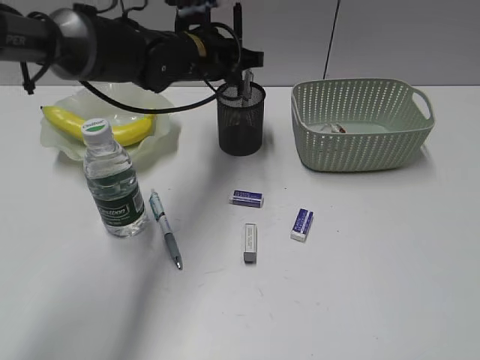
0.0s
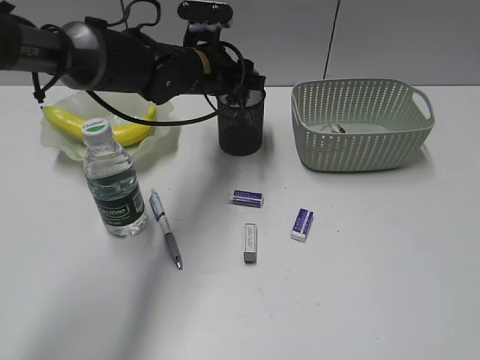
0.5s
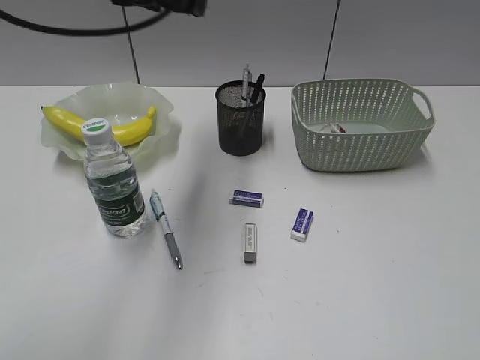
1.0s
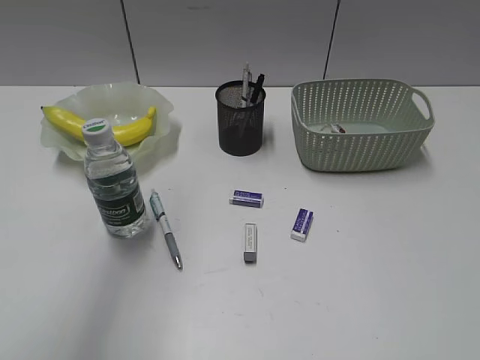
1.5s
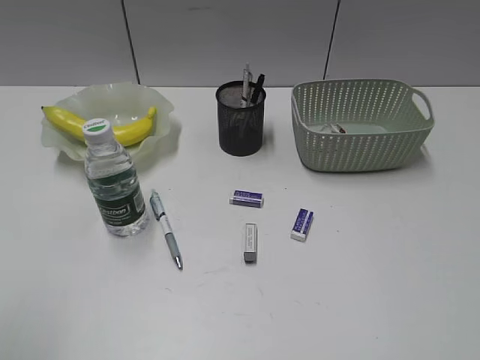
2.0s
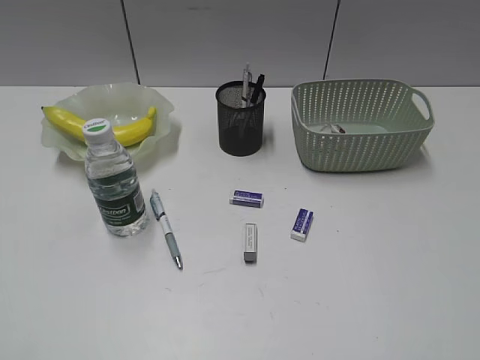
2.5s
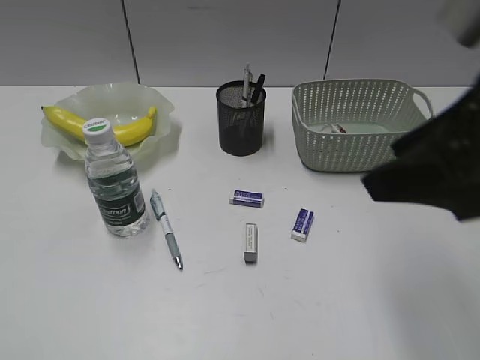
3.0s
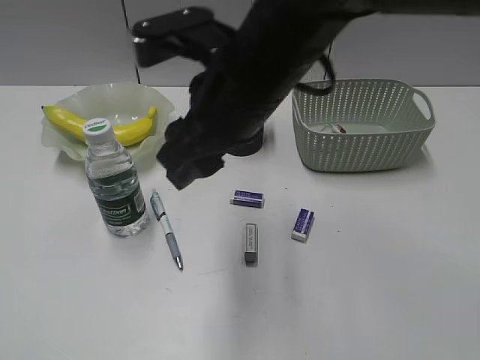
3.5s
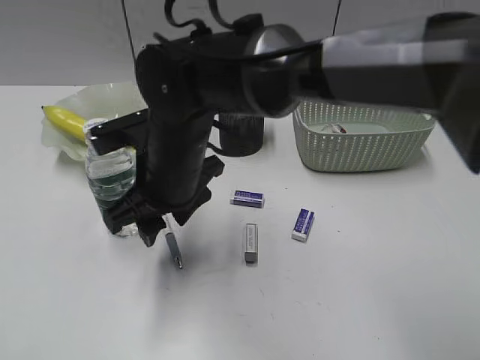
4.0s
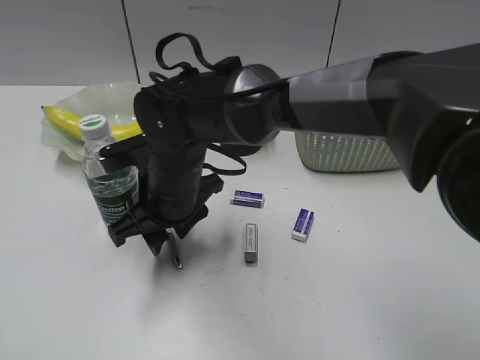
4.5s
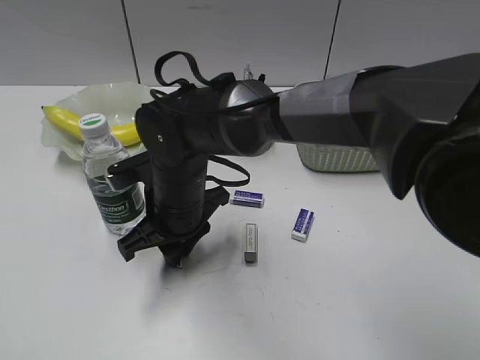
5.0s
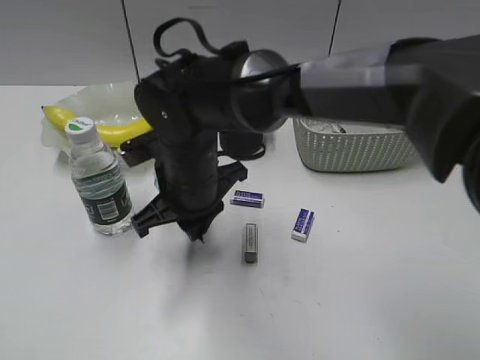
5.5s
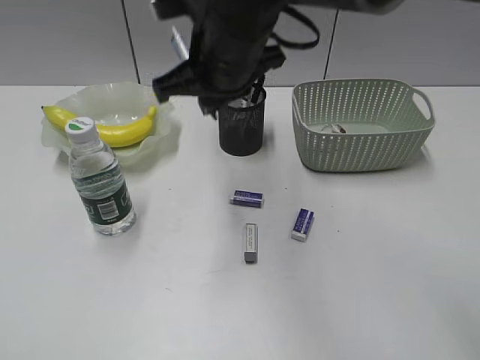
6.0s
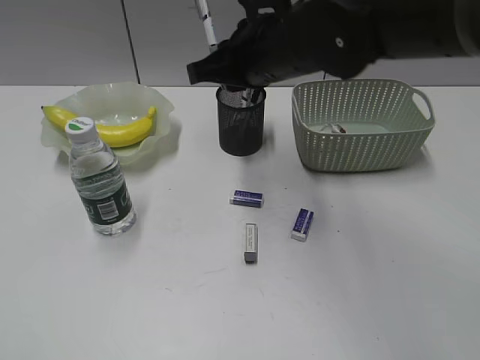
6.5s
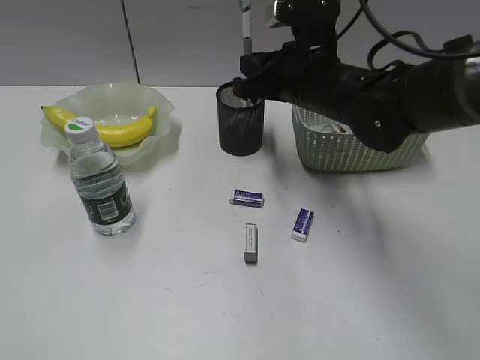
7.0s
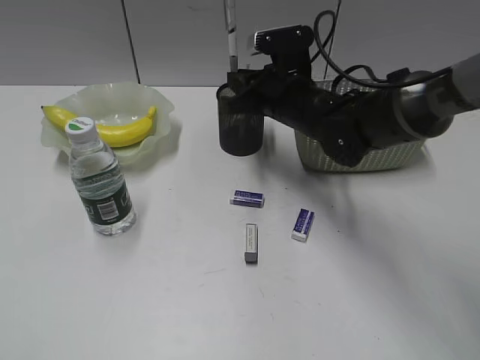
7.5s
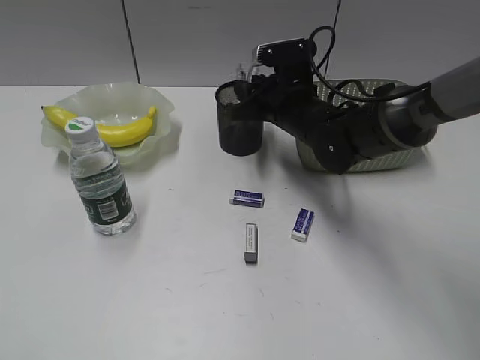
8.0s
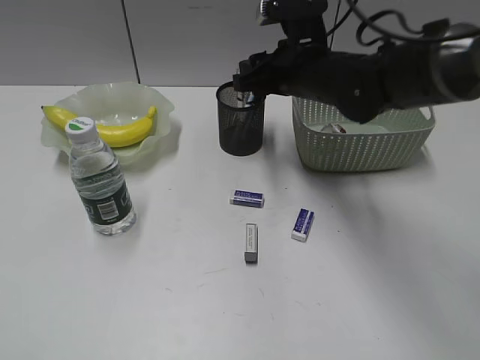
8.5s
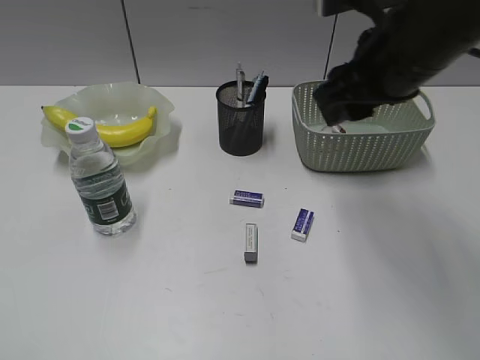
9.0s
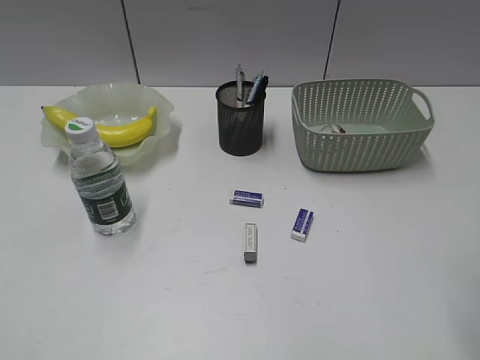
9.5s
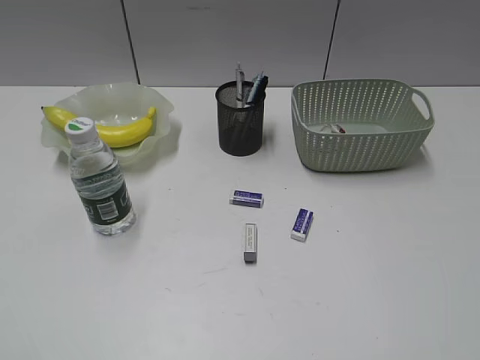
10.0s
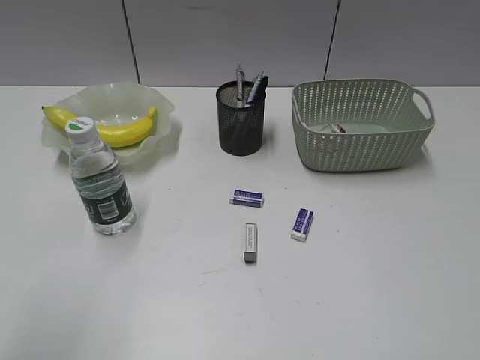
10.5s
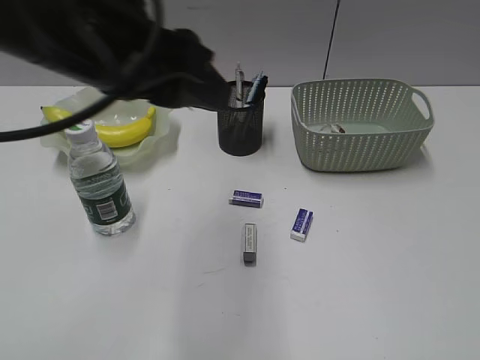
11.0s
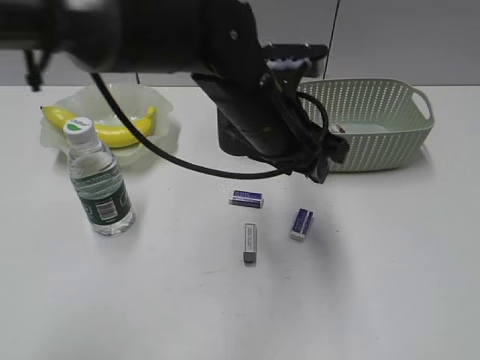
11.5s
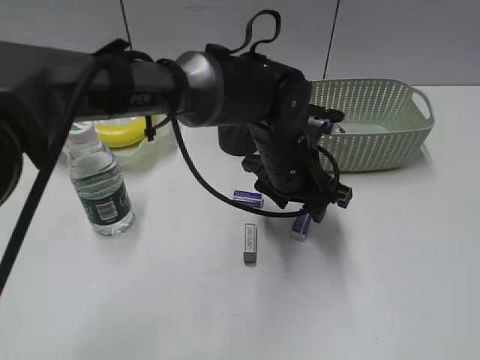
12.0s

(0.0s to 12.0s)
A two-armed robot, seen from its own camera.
Step, 1.0s - 5.0s: Grasp the blue pen with right gripper.
0.0s - 2.0s: The left gripper goes about 40 cm backward and to the left, and opens up.
2.0s - 4.0s: The right gripper moves to the left and forward, approximately 50 cm. The left gripper goes some 10 cm backward and downward.
4.0s - 6.0s: The right gripper moves upward, to the right and forward, approximately 10 cm, and closes.
6.0s - 8.0s: The right gripper is displaced downward, to the right and forward by some 15 cm, and opens its fingers.
8.0s - 10.0s: The right gripper moves backward, to the right and upward, some 50 cm.
10.0s - 12.0s: The left gripper heads to the right and forward, covering roughly 50 cm.

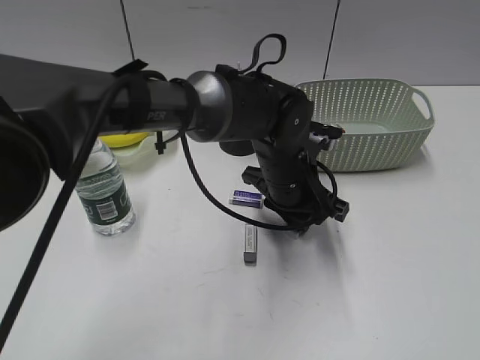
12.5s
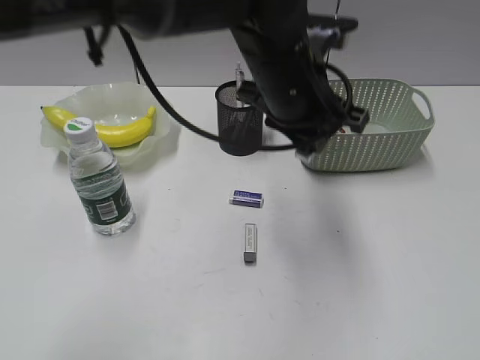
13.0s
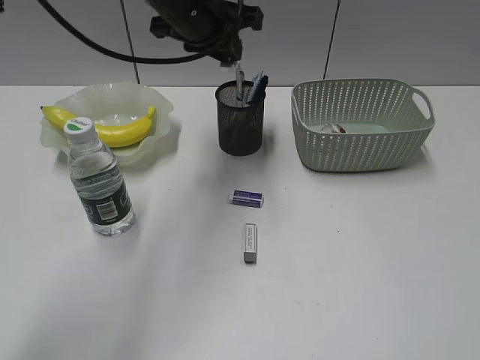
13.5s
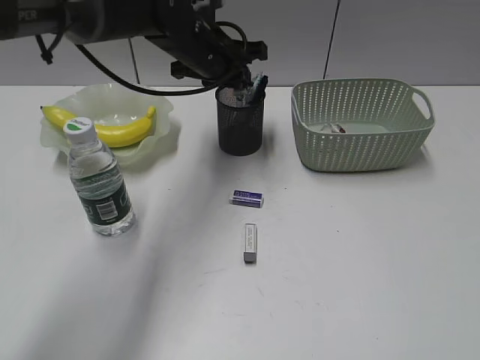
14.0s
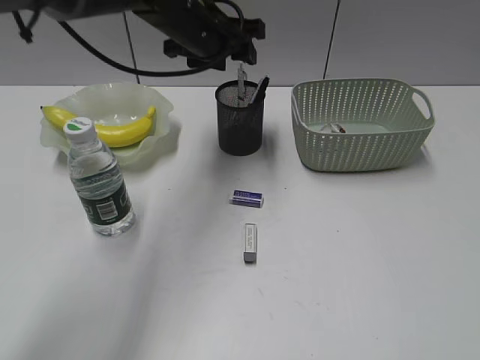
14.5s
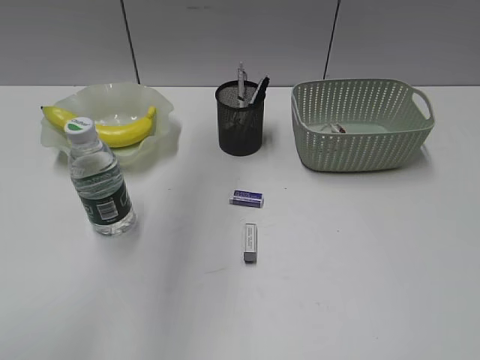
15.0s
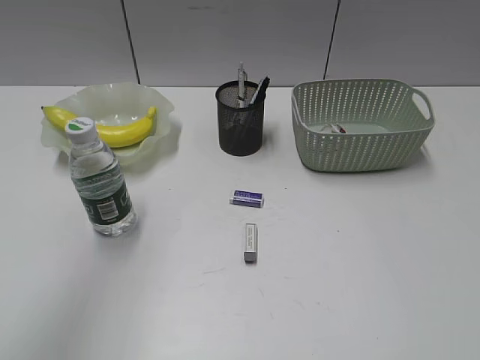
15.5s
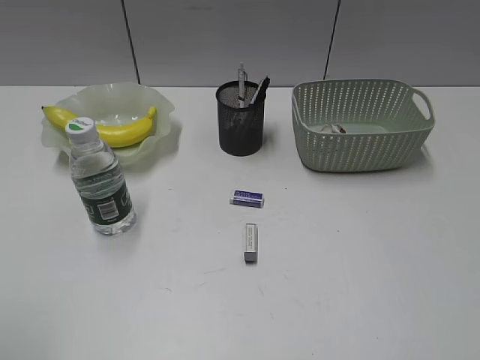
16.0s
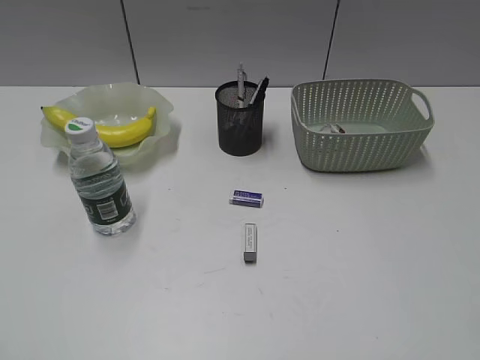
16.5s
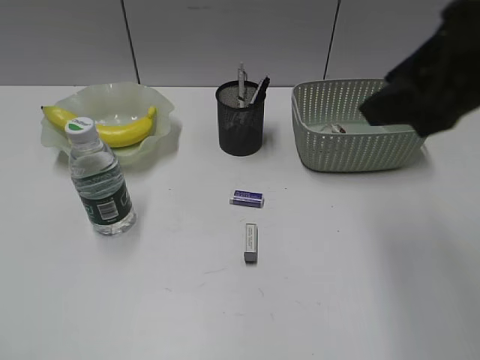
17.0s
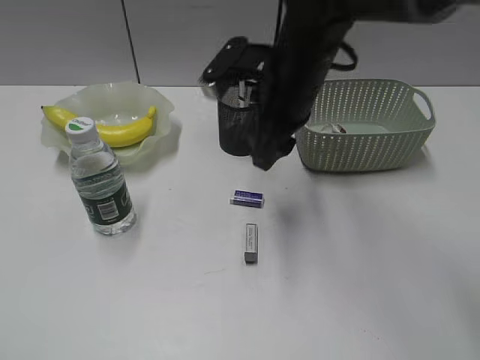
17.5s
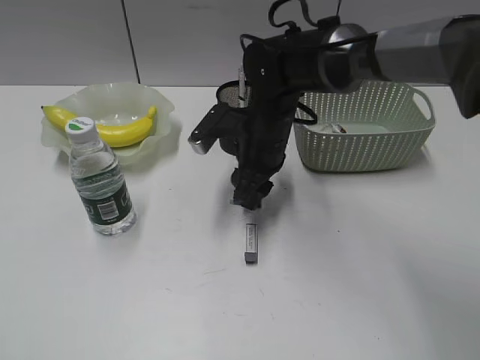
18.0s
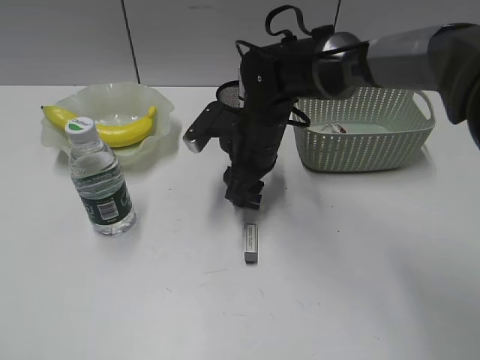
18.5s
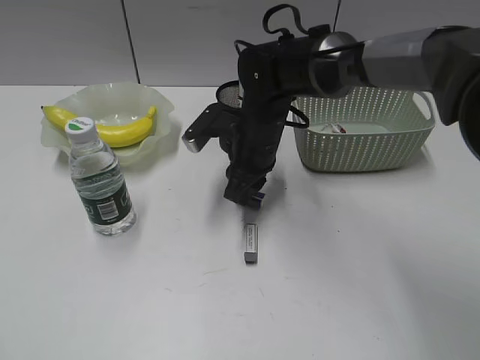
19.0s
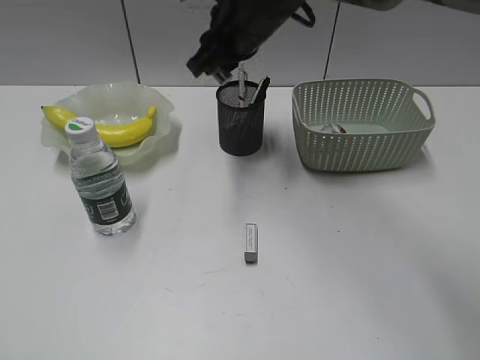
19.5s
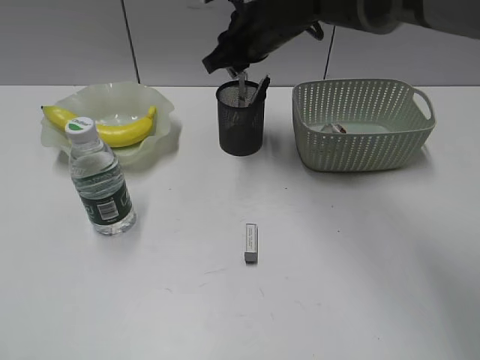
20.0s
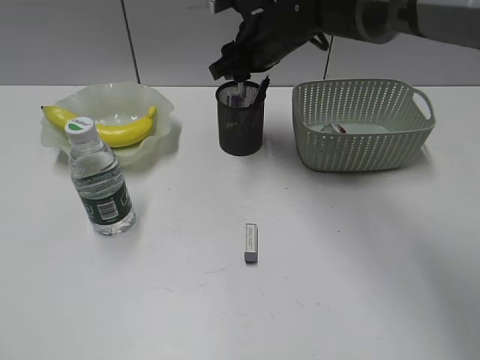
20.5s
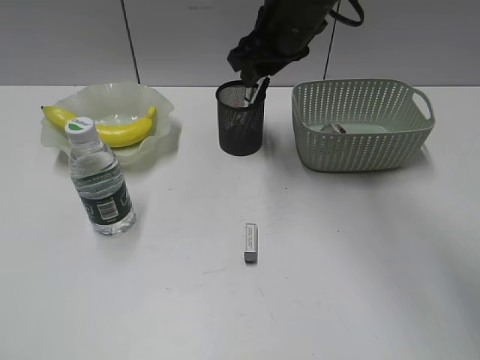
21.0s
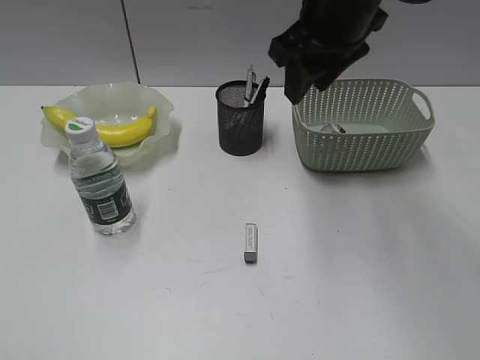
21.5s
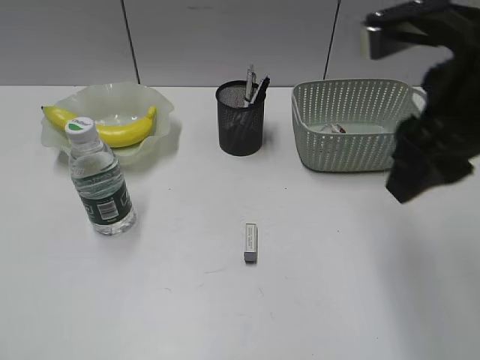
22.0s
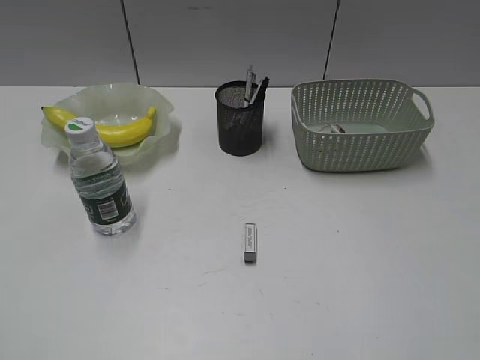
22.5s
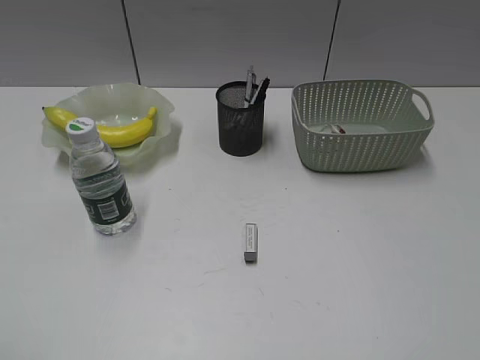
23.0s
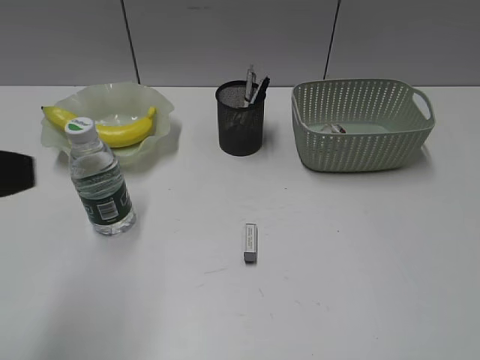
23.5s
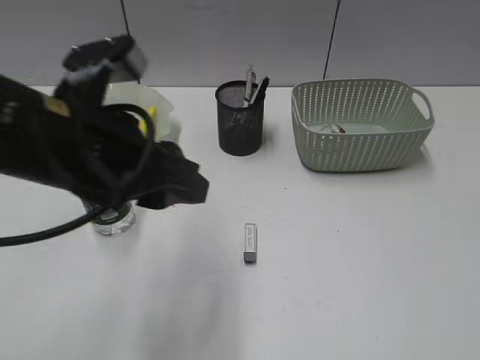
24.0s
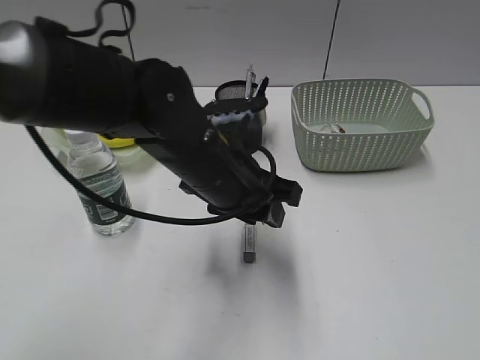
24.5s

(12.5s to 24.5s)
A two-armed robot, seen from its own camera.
Step, 13.0s - 14.0s: Place the eraser in pen holder with left gripper.
Step, 14.5s - 18.5s: Grasp the eraser with right gripper.
Step, 19.0s - 20.5s: Place the eraser in pen holder with right gripper.
12.5s - 14.5s: The left gripper travels forward, upward and to the left by roughly 20 cm, and opens its fingers.
14.5s - 16.5s: The left gripper travels backward and to the left by some 50 cm; the right gripper moves approximately 5 cm.
16.5s - 18.5s: The right gripper shifts approximately 50 cm forward, to the left and downward.
18.5s - 20.5s: The right gripper shifts roughly 10 cm upward and forward, and closes, then reopens.
20.5s - 22.5s: The right gripper moves backward and to the right, roughly 40 cm.
22.5s - 24.5s: The left gripper heads to the right and forward, covering roughly 40 cm, while the right gripper shifts approximately 10 cm backward and to the right.

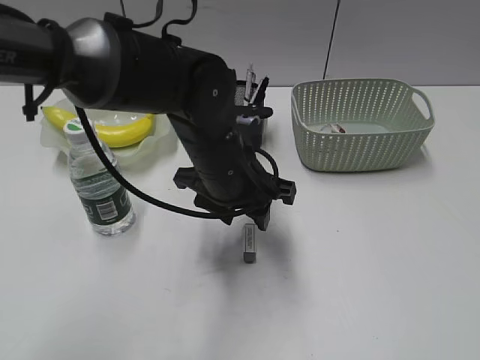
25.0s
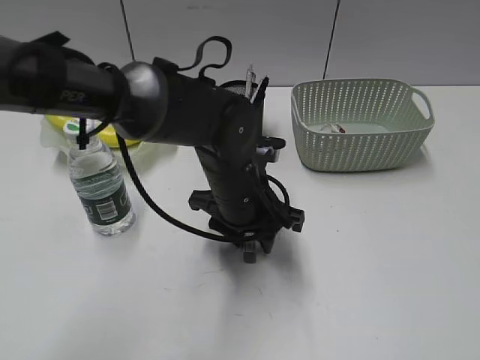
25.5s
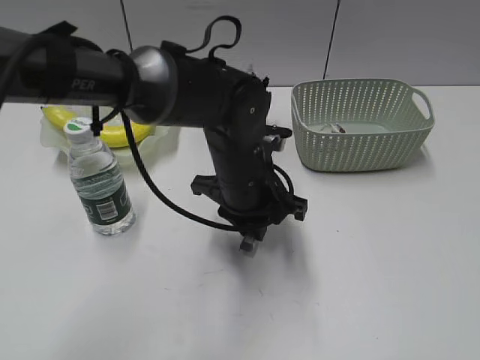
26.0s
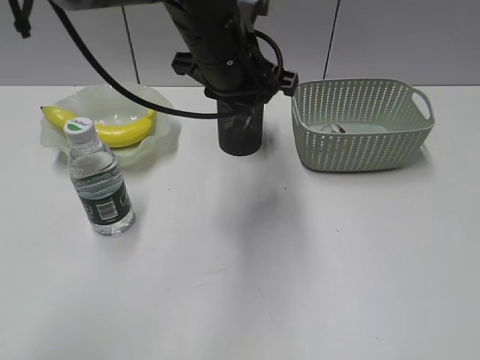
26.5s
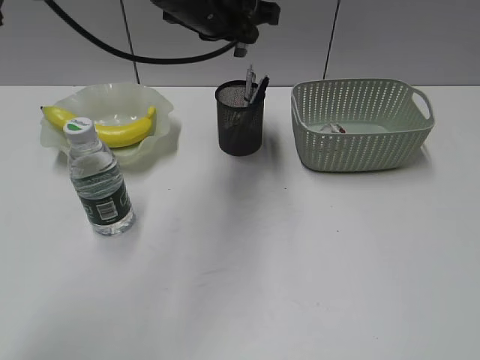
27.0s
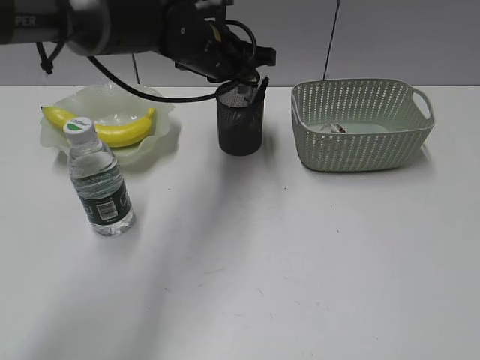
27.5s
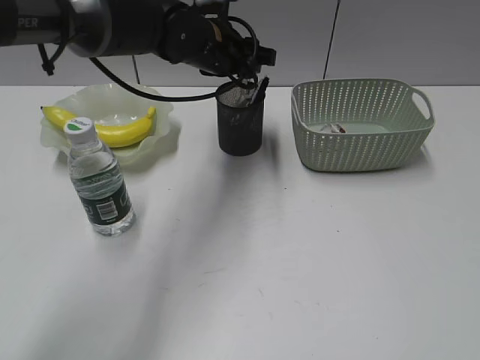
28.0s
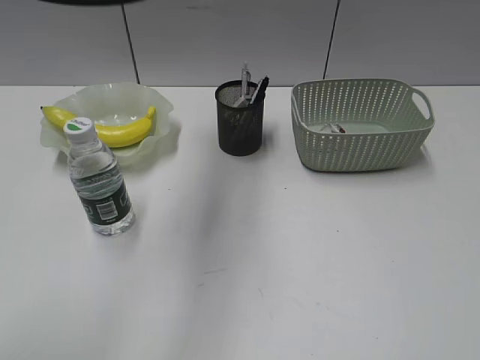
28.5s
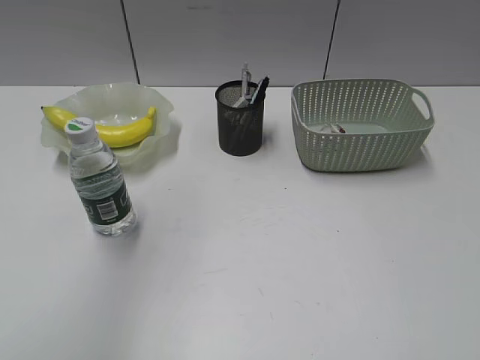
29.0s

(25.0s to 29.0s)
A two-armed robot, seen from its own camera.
Step, 26.0s - 28.0s: Place the eraser in pen holder with left gripper.
25.0s - 27.0s: The left gripper goes about 15 cm upward and forward, and closes its fingers.
27.0s - 29.0s: The left gripper travels upward, backward and to the left by some 35 cm, and opens up.
